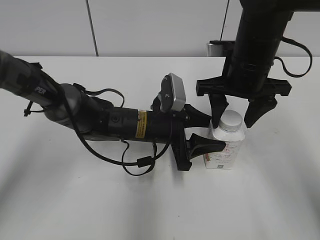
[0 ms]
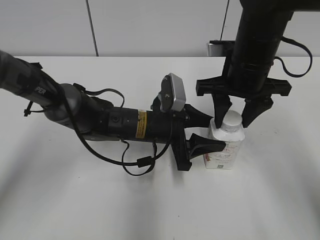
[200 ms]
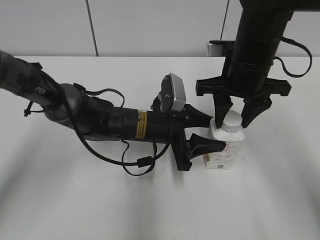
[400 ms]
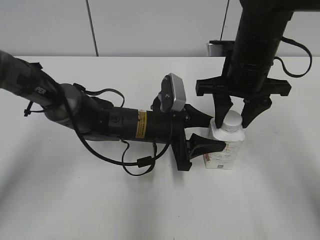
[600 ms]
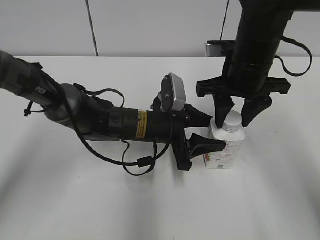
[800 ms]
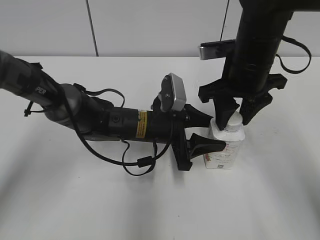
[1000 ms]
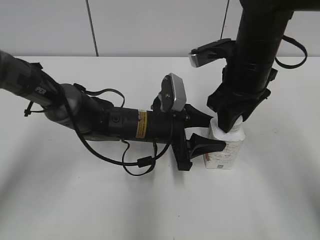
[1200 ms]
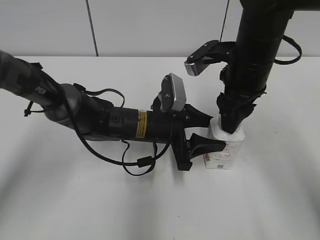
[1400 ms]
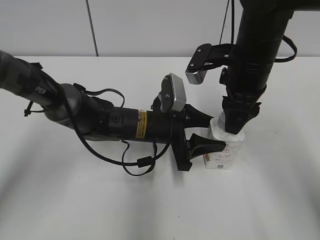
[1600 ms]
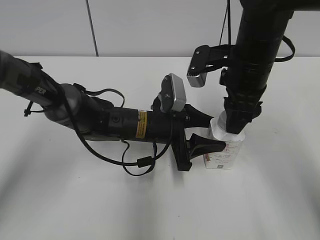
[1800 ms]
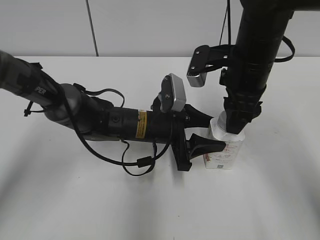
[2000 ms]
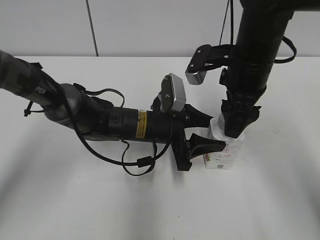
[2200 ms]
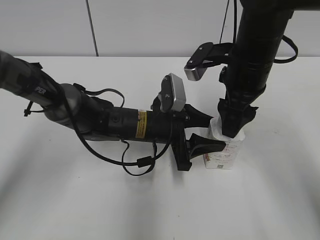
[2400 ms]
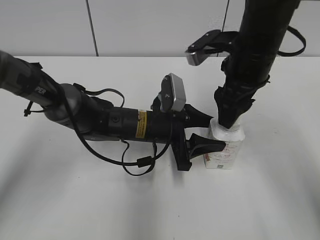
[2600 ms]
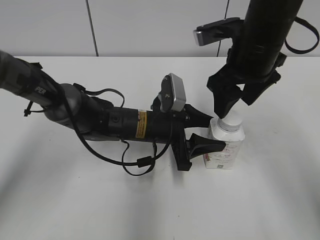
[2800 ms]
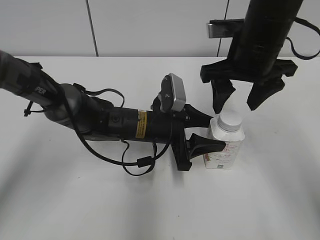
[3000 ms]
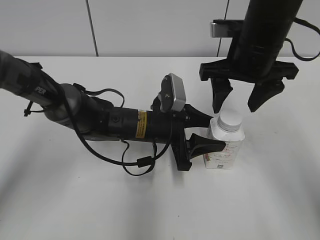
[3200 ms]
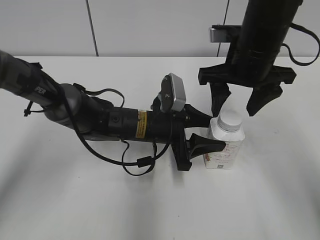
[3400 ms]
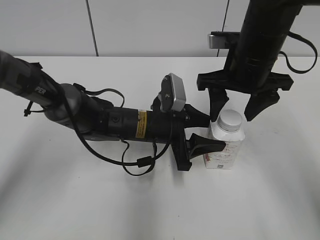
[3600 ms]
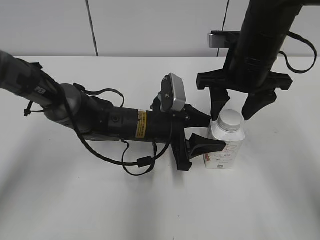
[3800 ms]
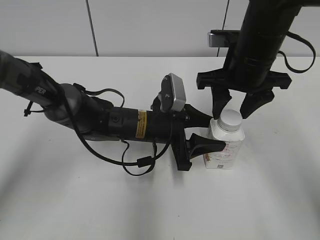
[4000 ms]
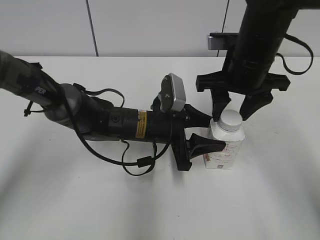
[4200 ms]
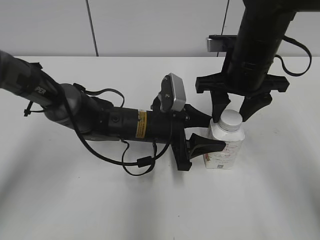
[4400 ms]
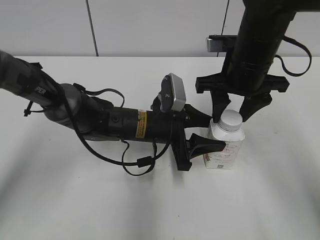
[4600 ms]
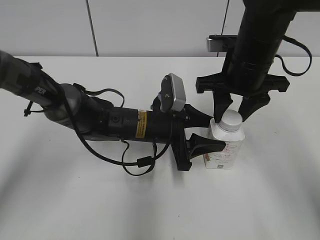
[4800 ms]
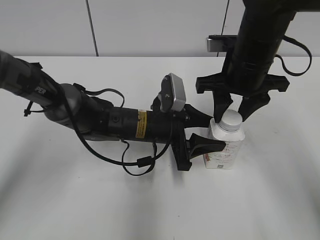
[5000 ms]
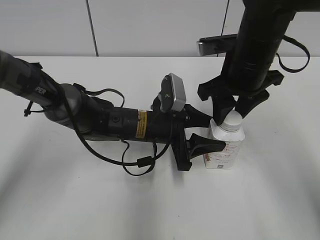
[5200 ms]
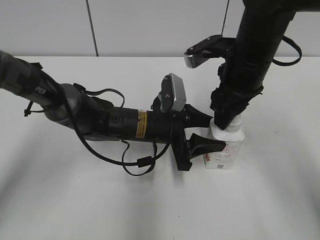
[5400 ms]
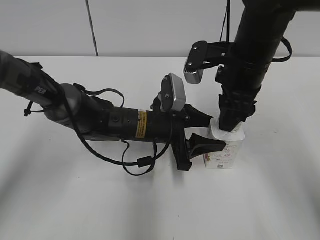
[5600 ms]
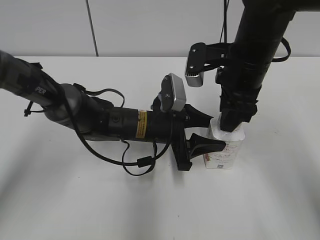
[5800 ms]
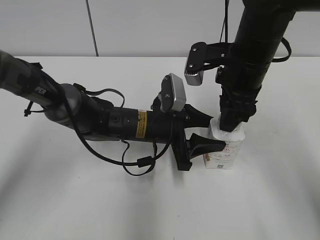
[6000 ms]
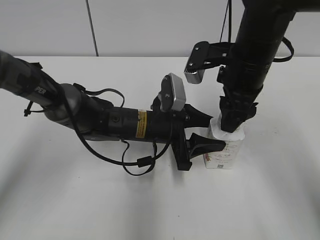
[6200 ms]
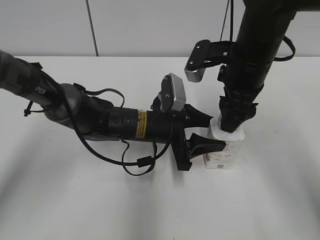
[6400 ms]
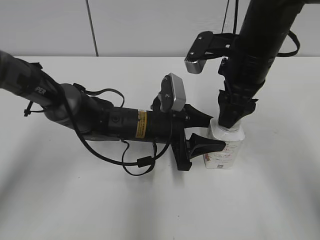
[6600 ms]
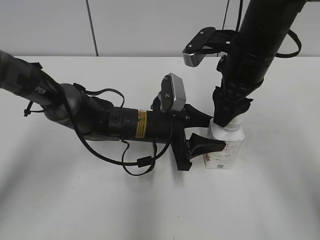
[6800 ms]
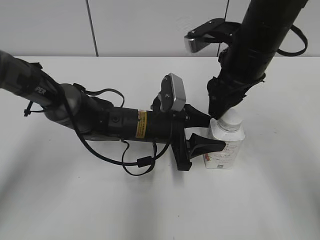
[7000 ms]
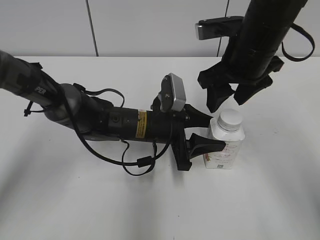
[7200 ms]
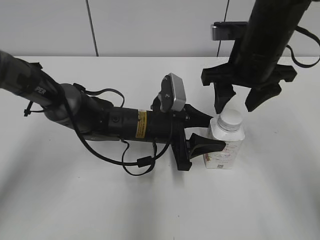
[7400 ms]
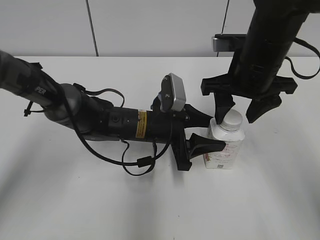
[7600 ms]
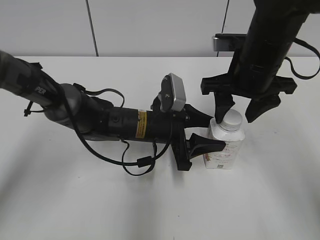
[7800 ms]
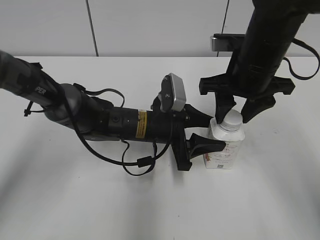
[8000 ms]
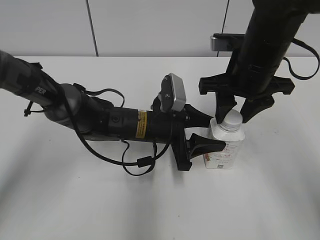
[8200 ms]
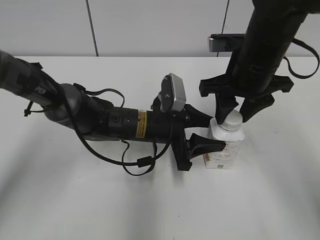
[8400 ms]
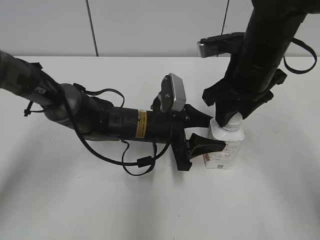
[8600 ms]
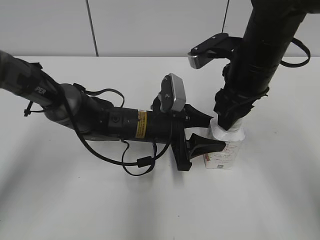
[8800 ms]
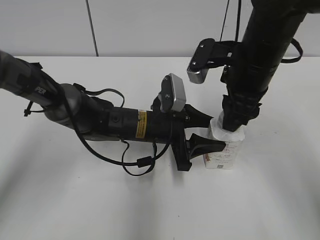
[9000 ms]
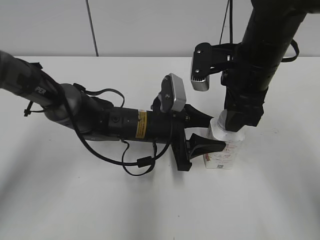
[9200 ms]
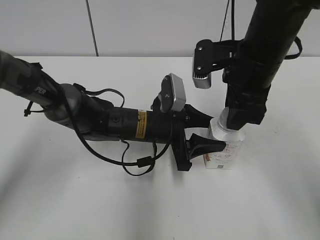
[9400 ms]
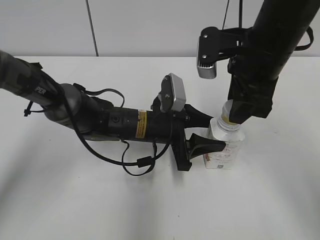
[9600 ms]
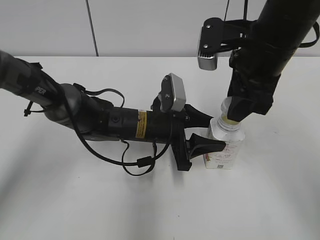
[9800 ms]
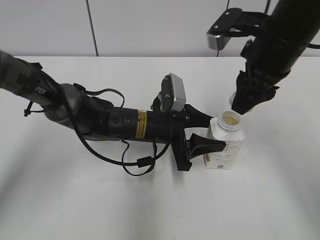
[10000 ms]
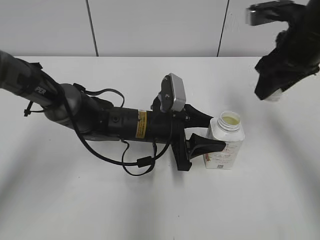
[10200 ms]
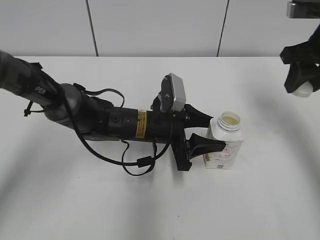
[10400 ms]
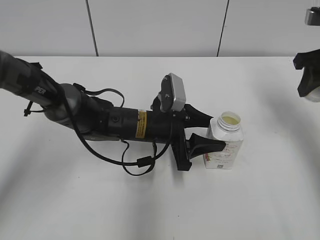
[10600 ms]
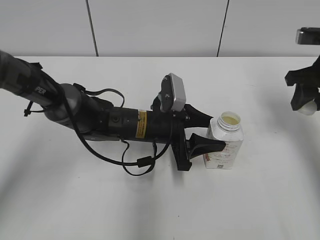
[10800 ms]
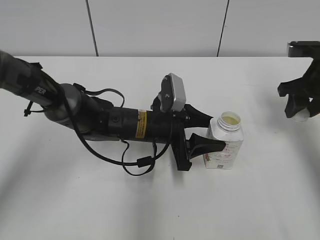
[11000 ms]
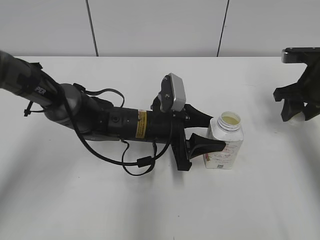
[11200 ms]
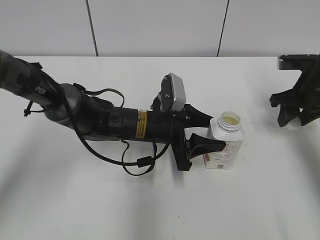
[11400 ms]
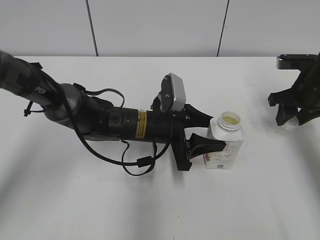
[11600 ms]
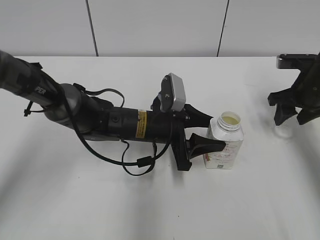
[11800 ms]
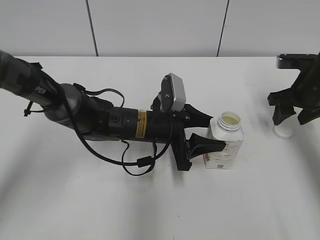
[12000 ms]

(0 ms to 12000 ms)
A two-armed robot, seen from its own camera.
Step, 0 ms - 10000 ms: Unscrew the bottle cap with the right gripper while holding the bottle with the left gripper.
Step, 10200 ms - 11800 ms: Place the bottle cap on the table with the right gripper.
0 ms - 1600 ms: The right gripper closes.
1600 ms - 3000 ms: The right gripper opens its fingers.
3000 ms - 4400 ms: The right gripper closes its fingers.
6000 ms - 7600 ms: The right gripper opens.
7600 ms - 9000 ms: The right gripper closes.
9000 ms - 10400 ms: The right gripper is displaced to the right by roughly 10 cm.
10400 ms - 12000 ms: The right gripper shifts approximately 10 cm downward, and opens its fingers.

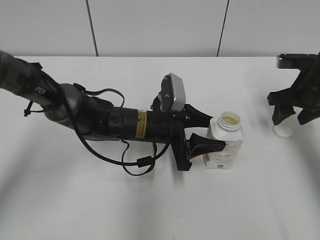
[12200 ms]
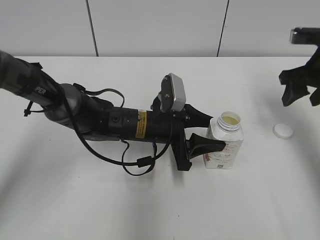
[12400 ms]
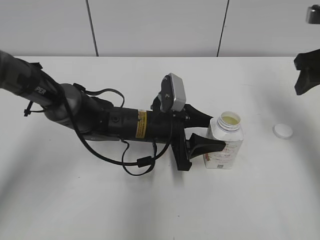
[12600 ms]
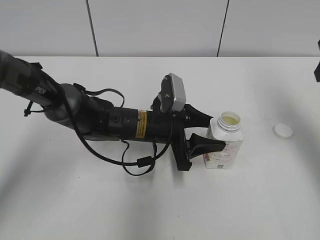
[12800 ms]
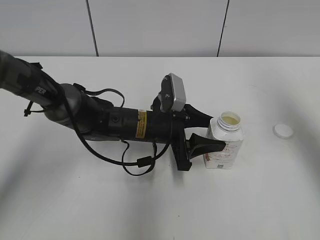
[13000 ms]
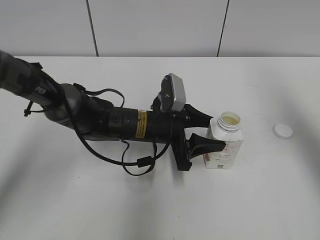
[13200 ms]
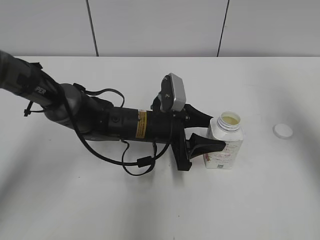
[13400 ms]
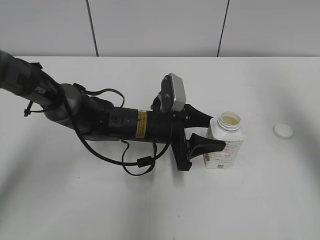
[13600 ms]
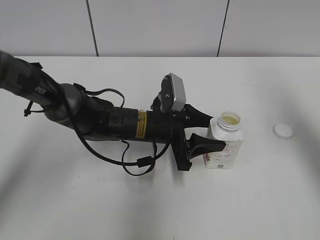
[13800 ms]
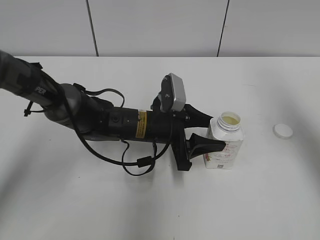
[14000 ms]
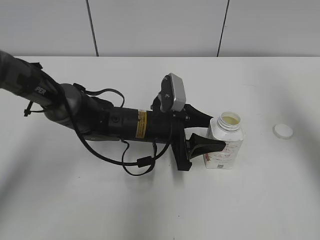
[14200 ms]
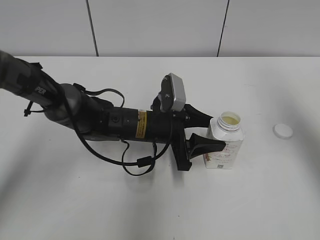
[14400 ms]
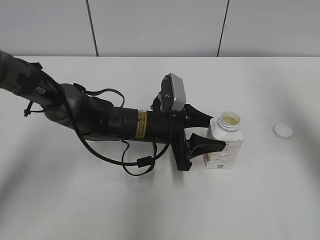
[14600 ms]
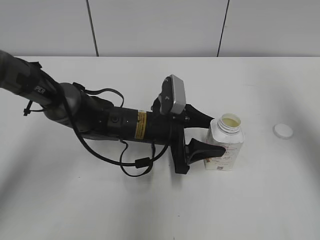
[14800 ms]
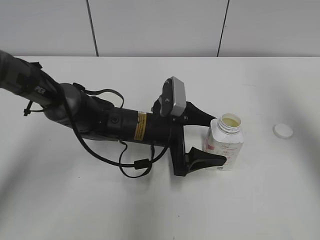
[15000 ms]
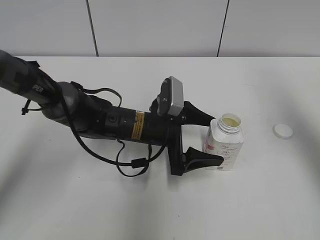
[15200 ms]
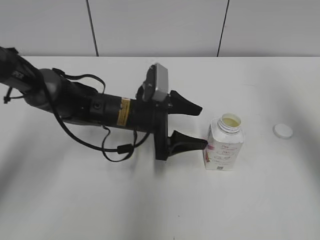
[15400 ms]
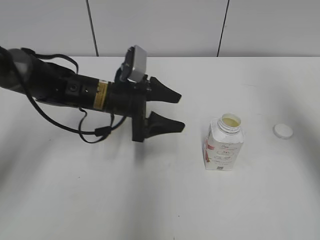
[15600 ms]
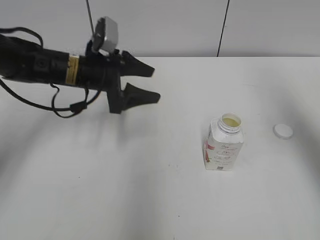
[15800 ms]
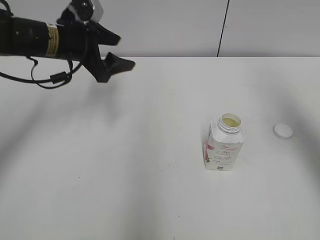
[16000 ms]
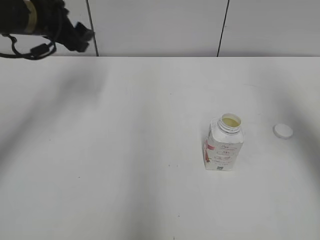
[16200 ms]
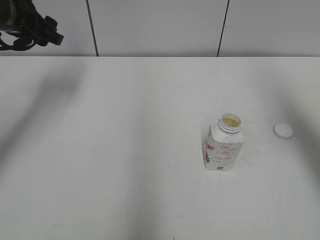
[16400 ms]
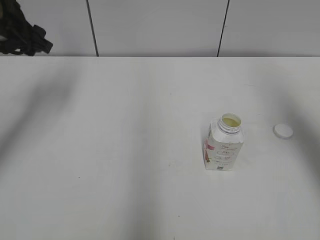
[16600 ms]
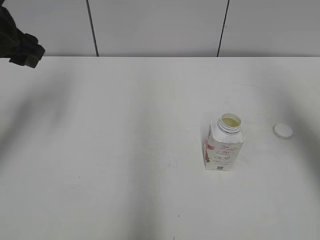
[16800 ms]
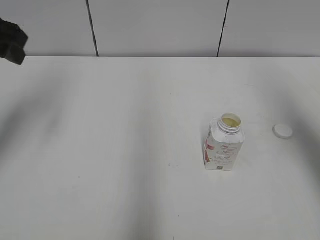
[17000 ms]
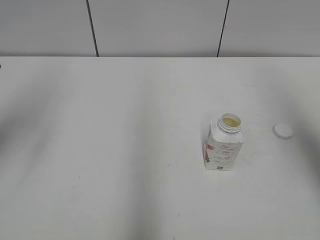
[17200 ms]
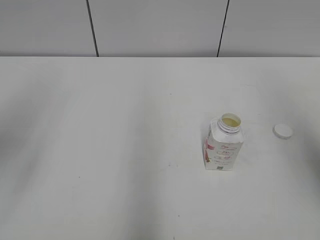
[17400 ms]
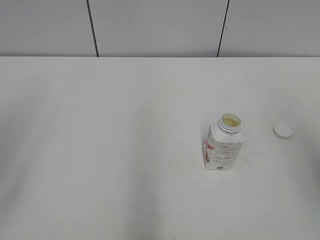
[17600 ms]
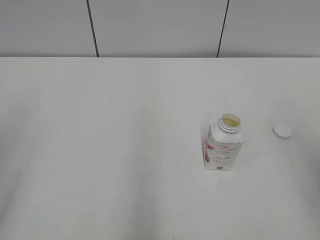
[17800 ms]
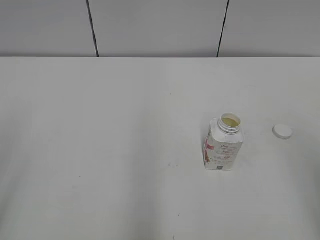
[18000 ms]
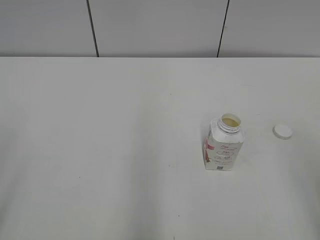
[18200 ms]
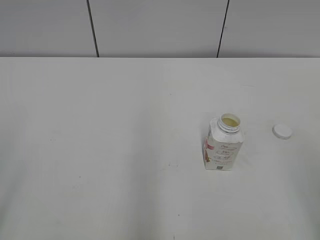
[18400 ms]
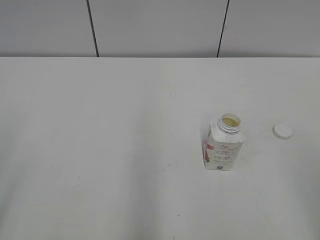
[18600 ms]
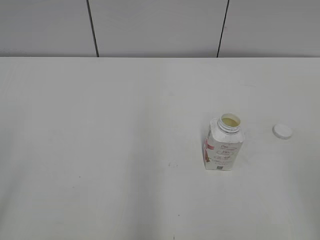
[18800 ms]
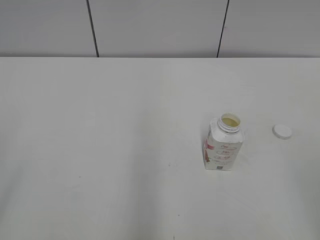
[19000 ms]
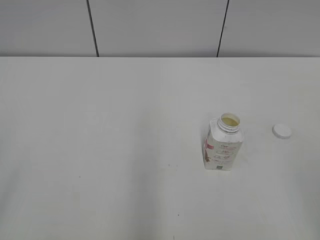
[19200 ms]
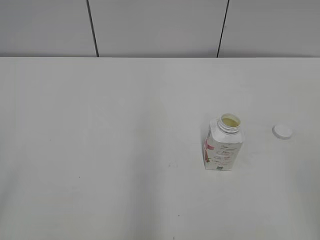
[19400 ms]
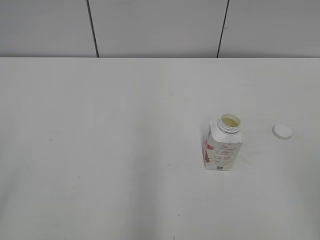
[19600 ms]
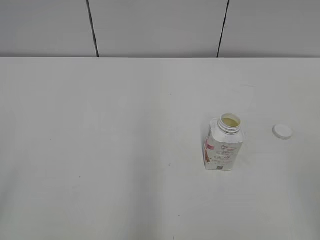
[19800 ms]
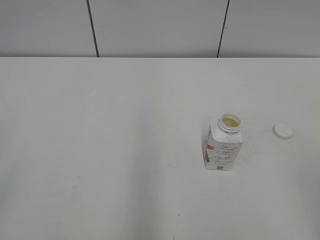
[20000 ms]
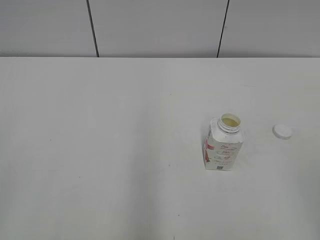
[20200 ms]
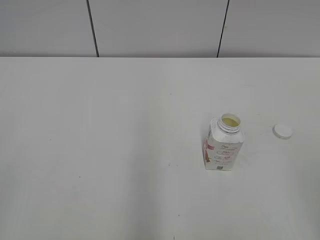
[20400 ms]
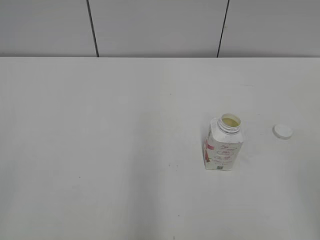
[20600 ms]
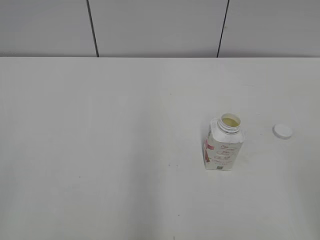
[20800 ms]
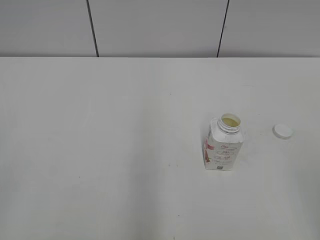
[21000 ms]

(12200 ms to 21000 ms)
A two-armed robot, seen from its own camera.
12200 ms - 13600 ms: The right gripper travels upward and backward by about 20 cm.
13600 ms - 15200 ms: The left gripper opens.
15200 ms - 16600 ms: The left gripper travels to the left and upward by about 30 cm.
16600 ms - 18000 ms: The right gripper heads backward, covering approximately 20 cm, while the left gripper travels backward by some 30 cm.
